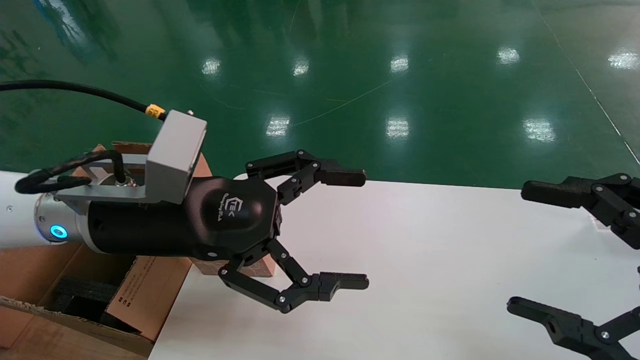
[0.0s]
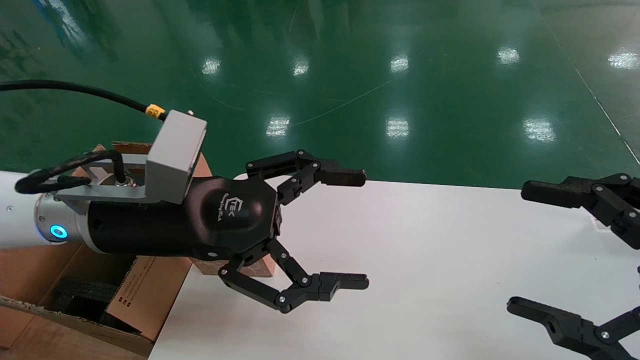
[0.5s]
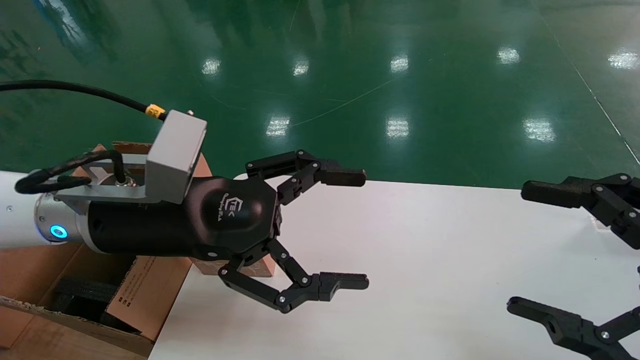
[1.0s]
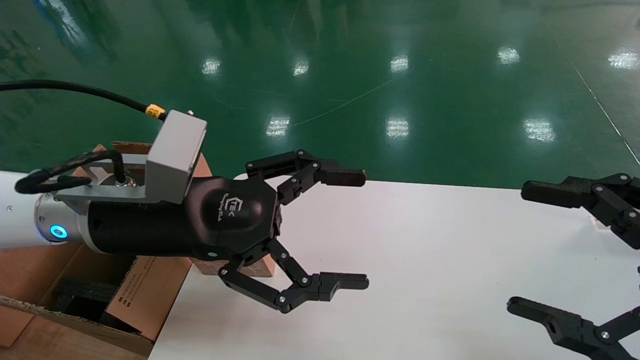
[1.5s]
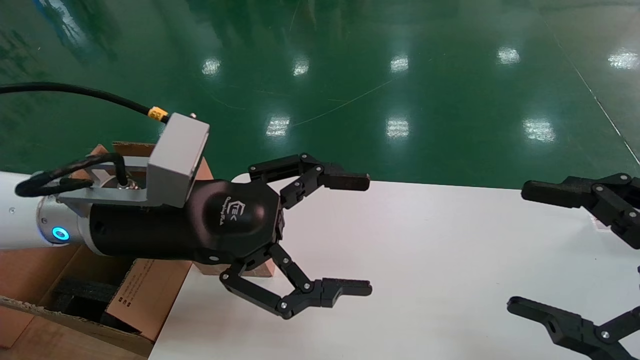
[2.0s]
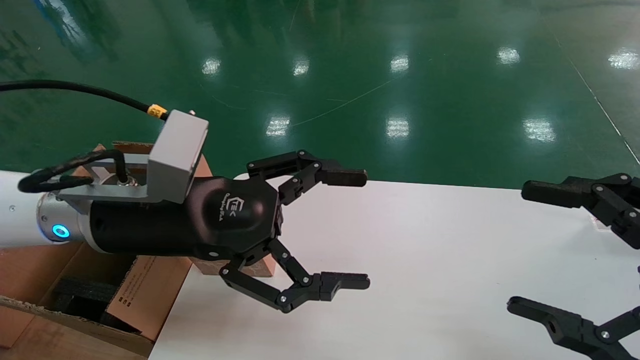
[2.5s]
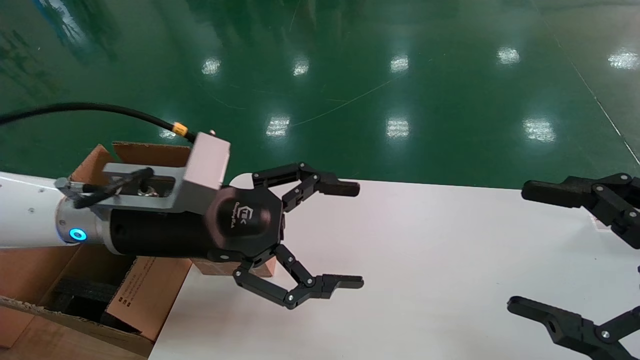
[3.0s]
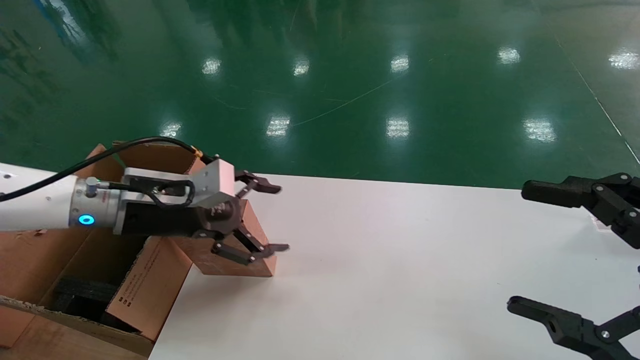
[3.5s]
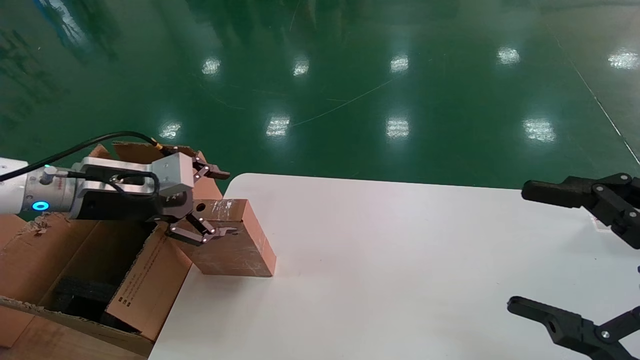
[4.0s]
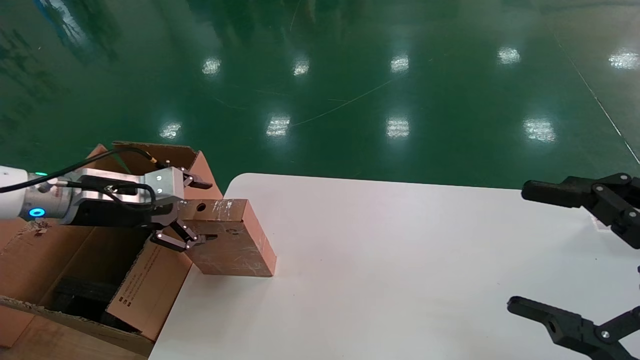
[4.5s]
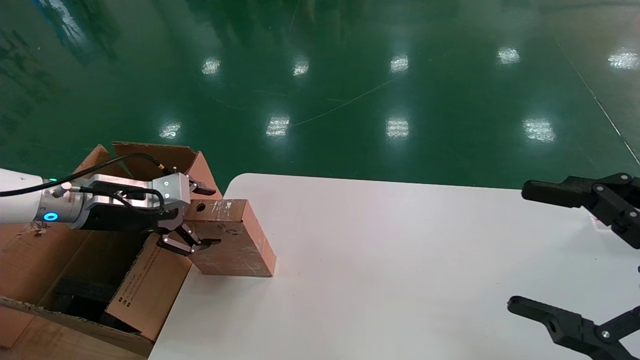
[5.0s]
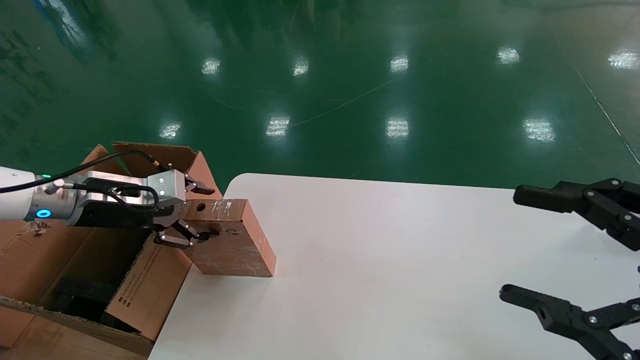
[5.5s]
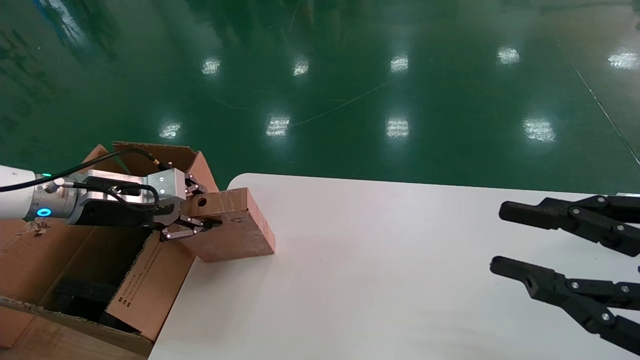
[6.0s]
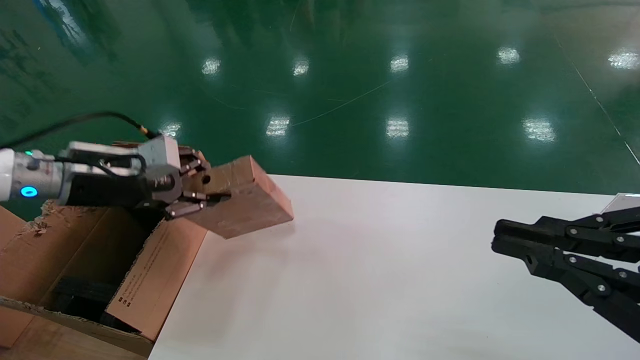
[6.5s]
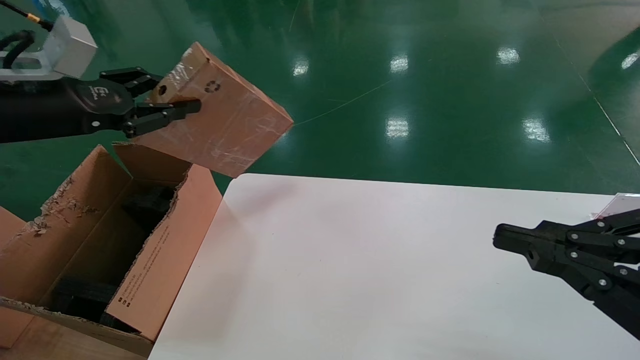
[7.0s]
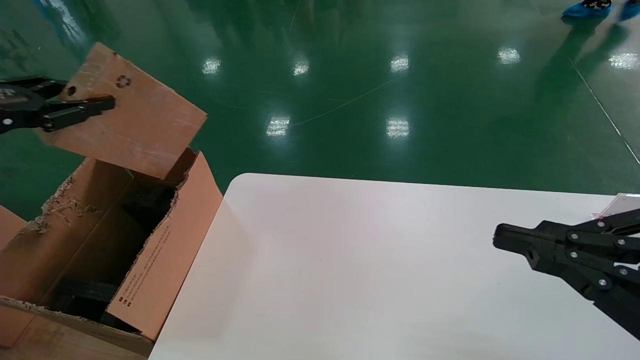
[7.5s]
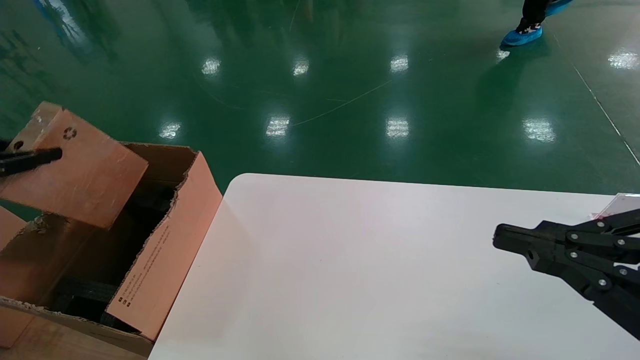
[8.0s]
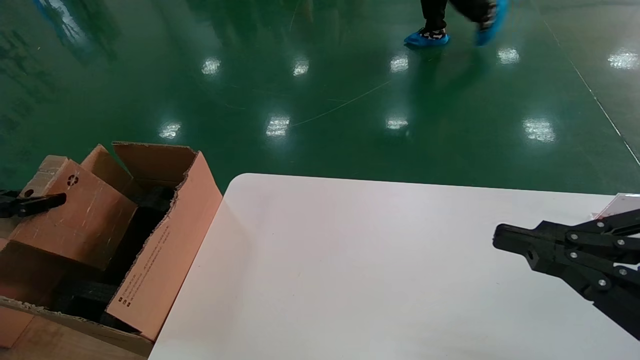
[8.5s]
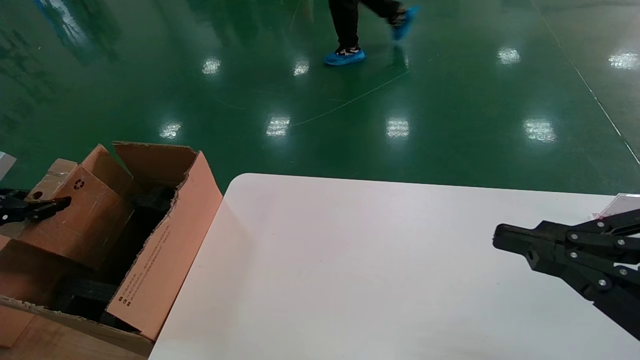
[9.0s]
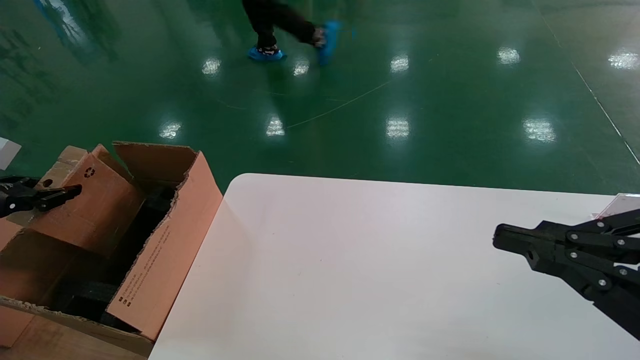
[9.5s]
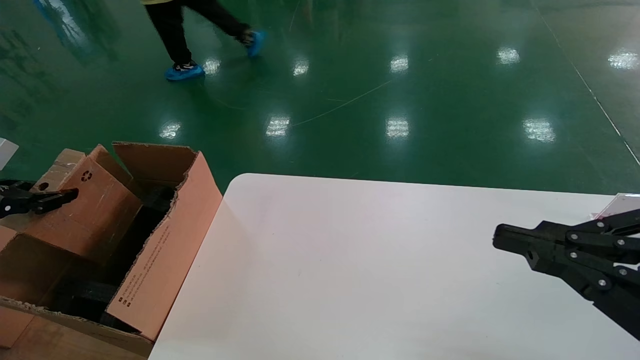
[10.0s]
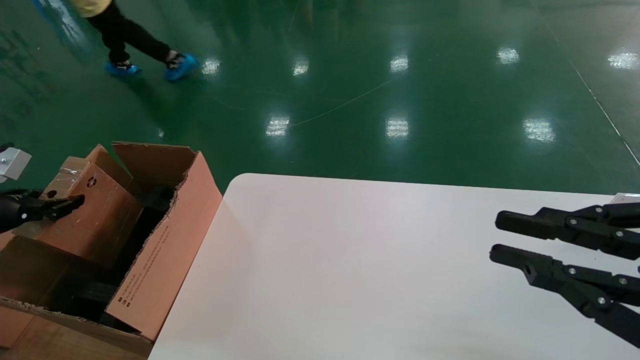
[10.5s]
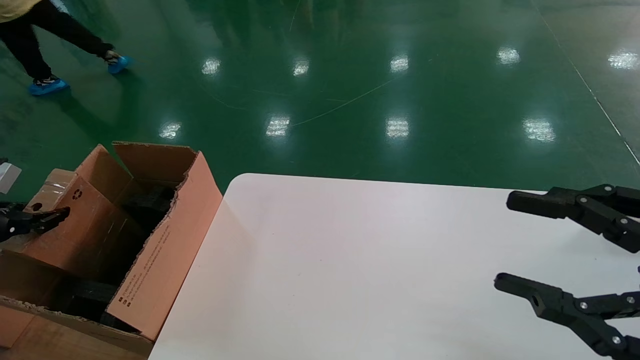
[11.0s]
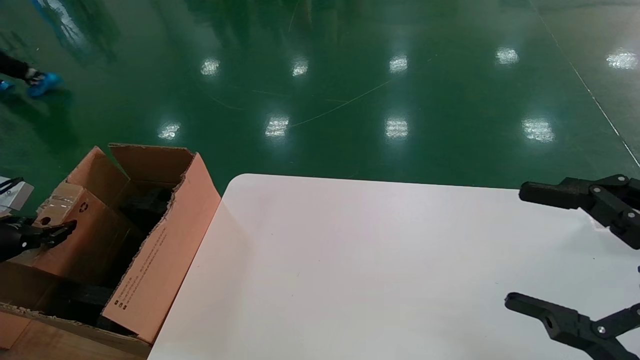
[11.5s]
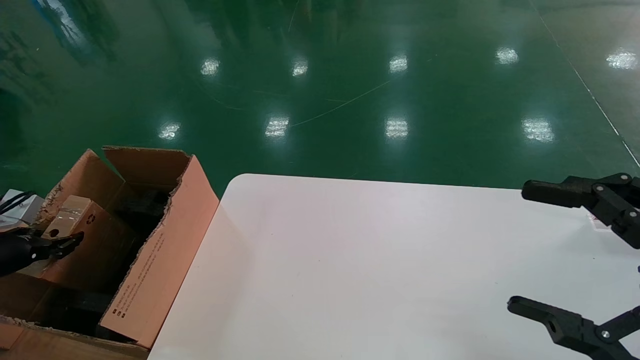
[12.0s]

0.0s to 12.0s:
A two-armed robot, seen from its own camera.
Task of the whole recording: put the box on the table into the big box.
Step, 3.0s to 6.0s: Pick up the mouse and the power cord paper box.
0.0s to 2.0s: The two grippers keep their place.
2.0s to 4.0s: The left gripper goes about 15 cm to the left and forward.
4.0s to 6.0s: The right gripper closes, while the left gripper moves some 5 cm, and closes its fingers.
6.0s to 8.0s: The right gripper closes; the left gripper moves to the left and backward, roughly 20 cm, and closes up.
8.0s to 10.0s: The left gripper heads downward, covering some 5 cm.
10.0s to 12.0s: The right gripper opens. Meanwhile the left gripper heads downward, covering approximately 10 cm.

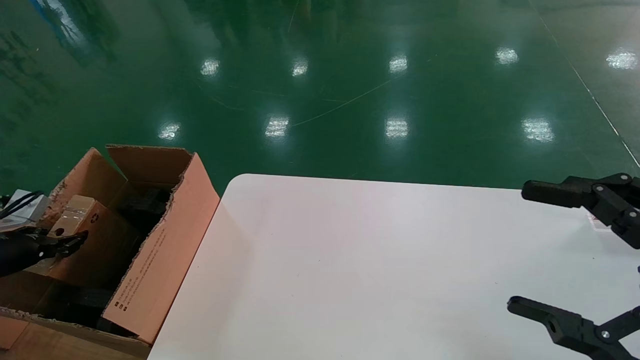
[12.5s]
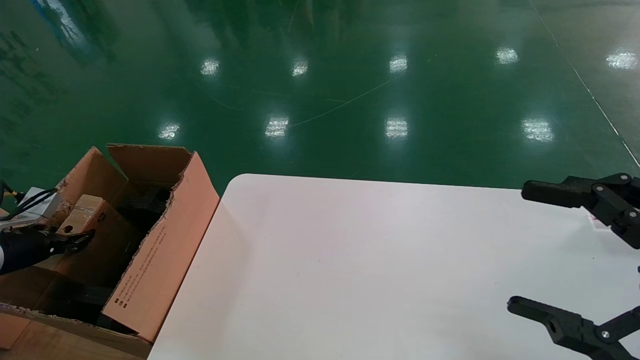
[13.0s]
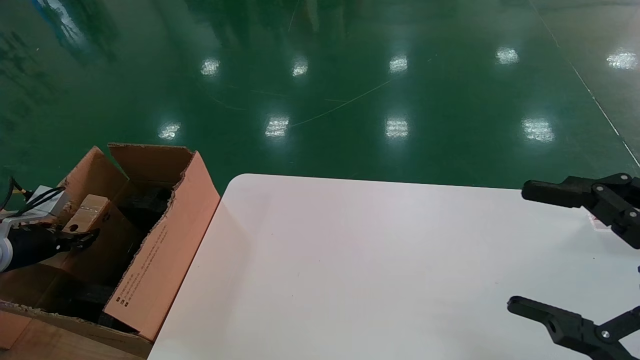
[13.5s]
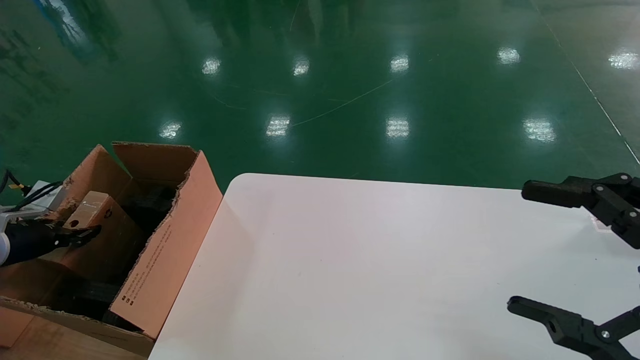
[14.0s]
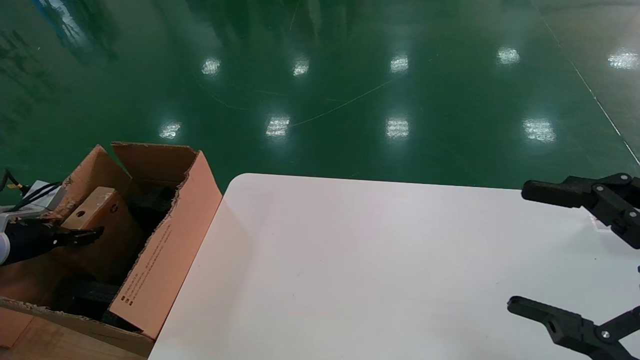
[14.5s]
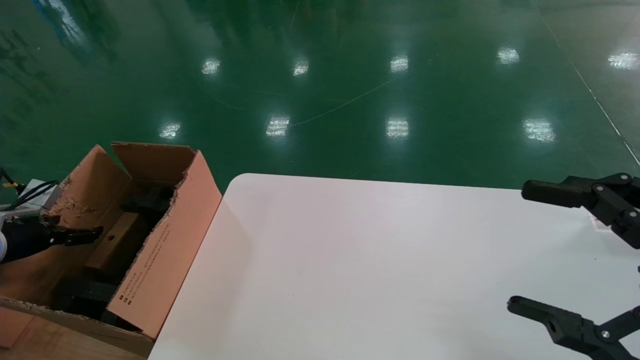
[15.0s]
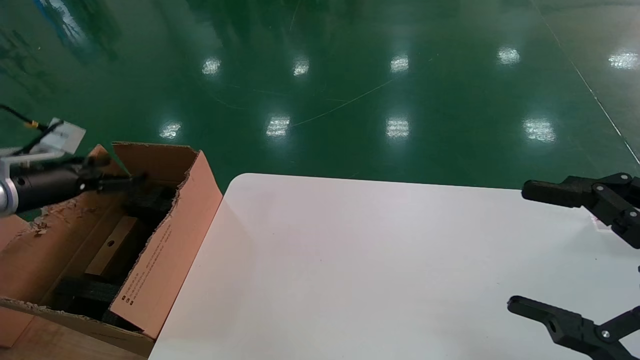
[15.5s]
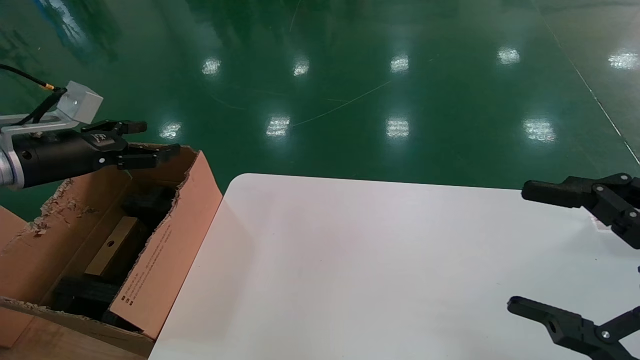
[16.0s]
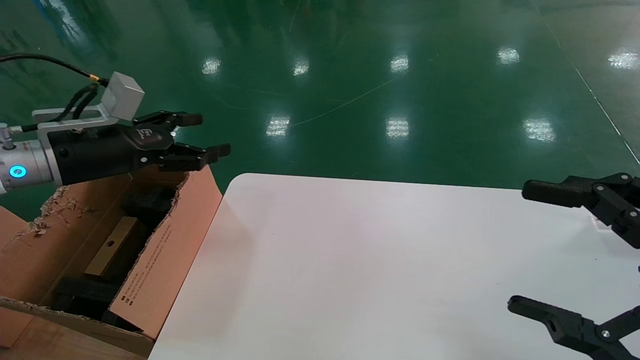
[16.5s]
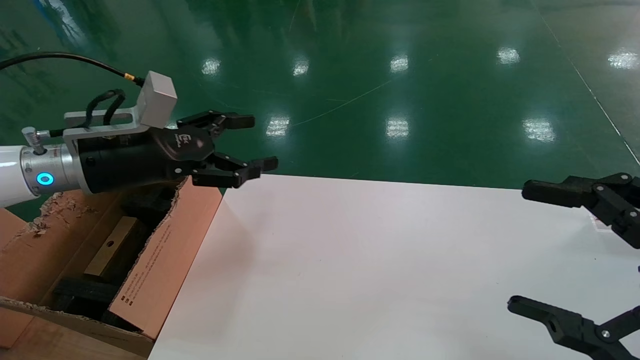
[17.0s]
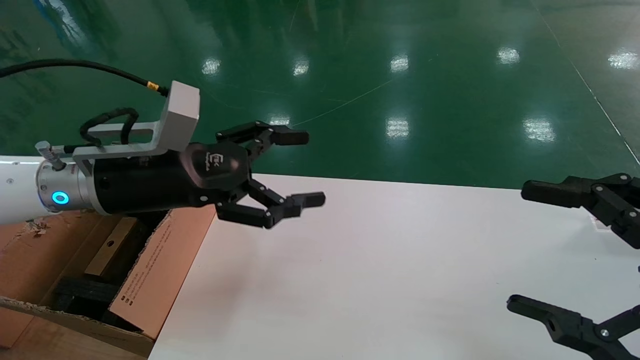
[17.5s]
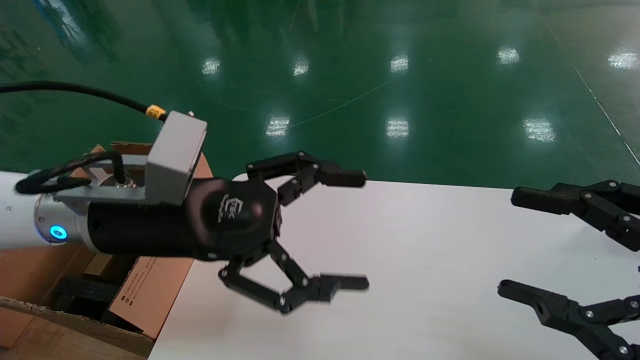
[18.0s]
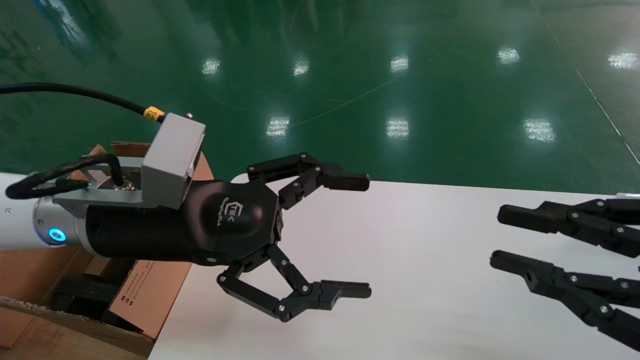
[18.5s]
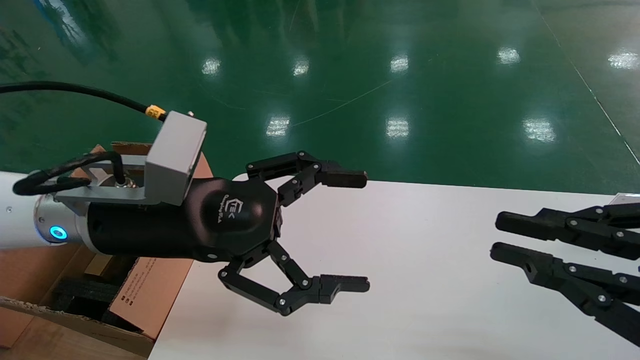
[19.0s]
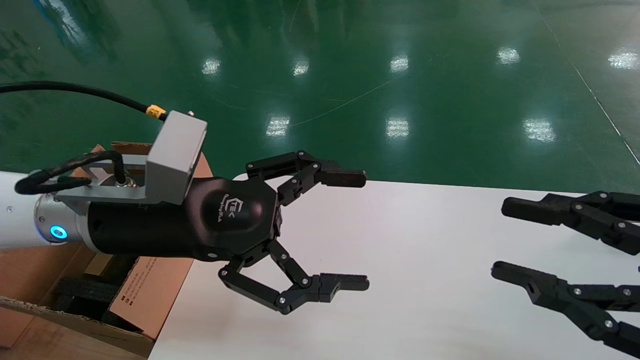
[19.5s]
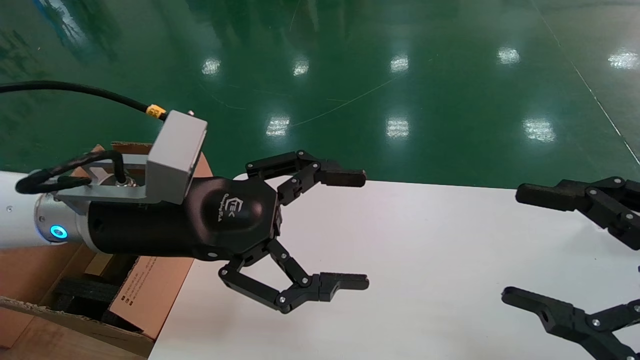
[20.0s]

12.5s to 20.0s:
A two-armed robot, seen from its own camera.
Task of the whole recording: put the box on the table into the big box.
Step, 12.5s to 14.5s: Place the mouse and the power cord paper box into the container.
12.5s to 14.5s: The left gripper opens up.
14.5s to 16.5s: The left gripper moves to the right and upward, roughly 25 cm, and opens up.
16.5s to 18.0s: The left gripper moves to the right and backward, some 20 cm.
18.0s to 20.0s: The right gripper closes and opens again.
